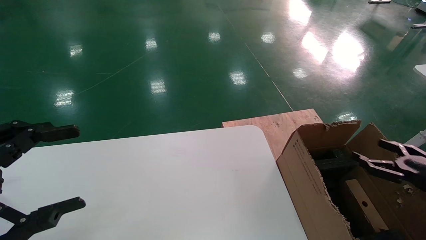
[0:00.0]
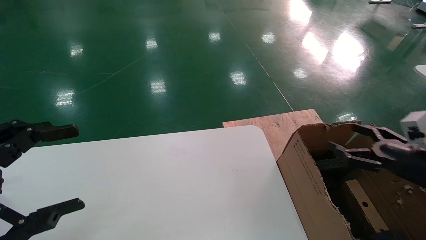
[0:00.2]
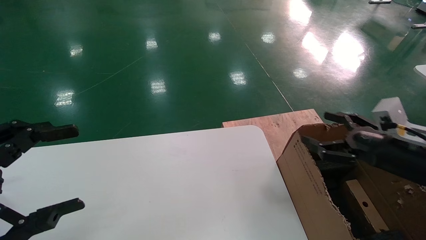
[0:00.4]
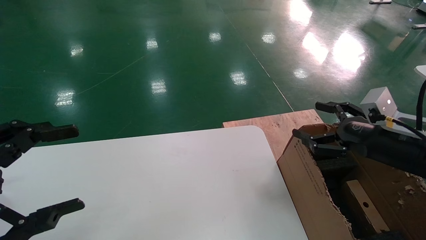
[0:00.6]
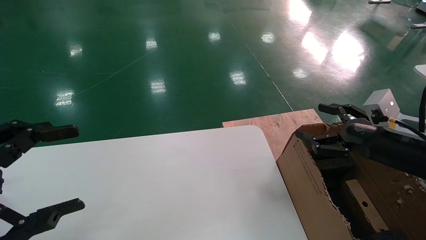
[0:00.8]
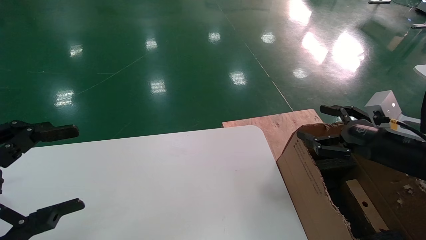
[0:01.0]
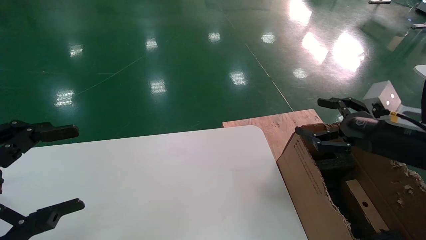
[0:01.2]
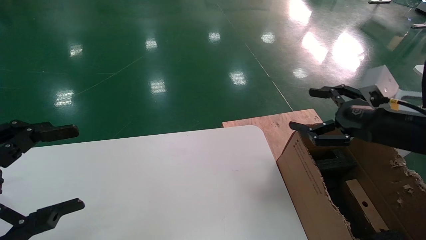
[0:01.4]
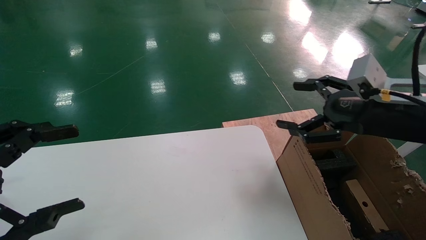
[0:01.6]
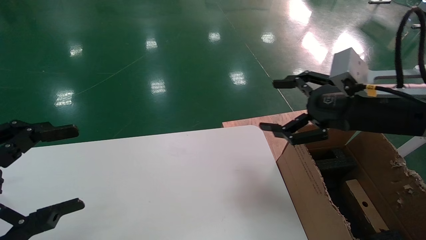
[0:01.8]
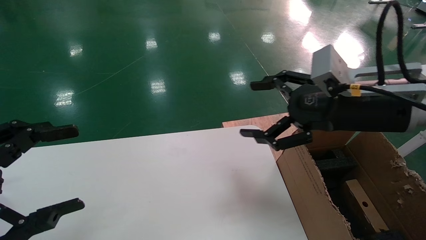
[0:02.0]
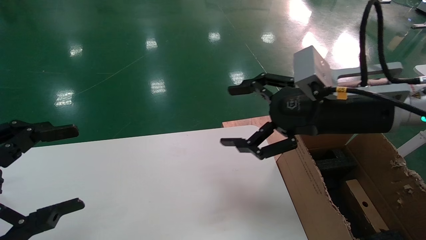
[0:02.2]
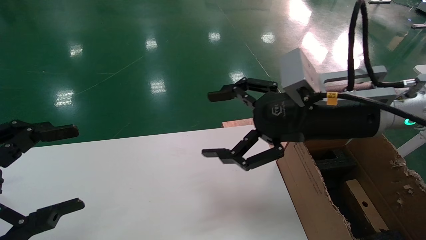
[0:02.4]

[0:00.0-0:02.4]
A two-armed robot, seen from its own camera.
Task of the whole recording: put the box on the table into the big box.
0:00.0 to 0:01.2: The right gripper moves to the left and upward, roughly 15 cm.
0:01.2 to 0:02.4: The right gripper is displaced to the left and upward by some 15 cm.
